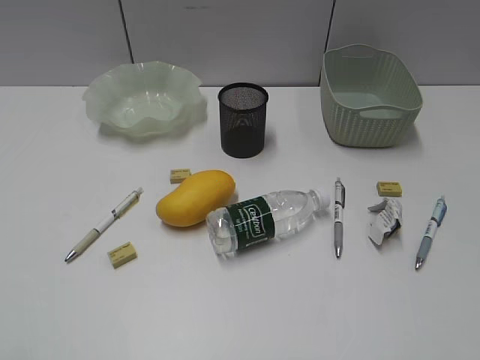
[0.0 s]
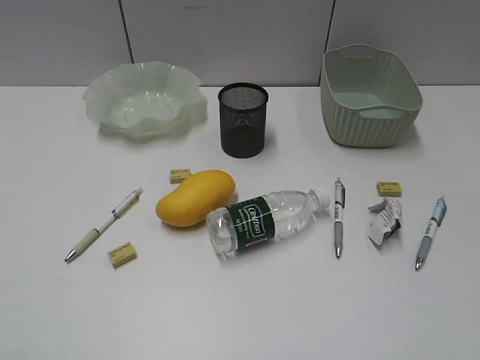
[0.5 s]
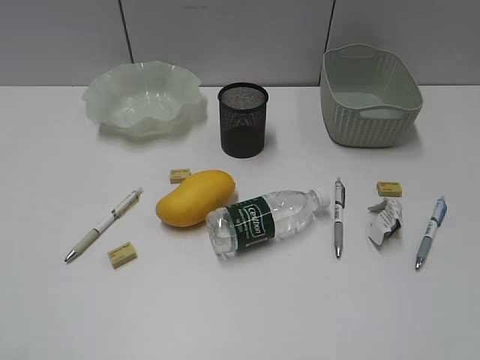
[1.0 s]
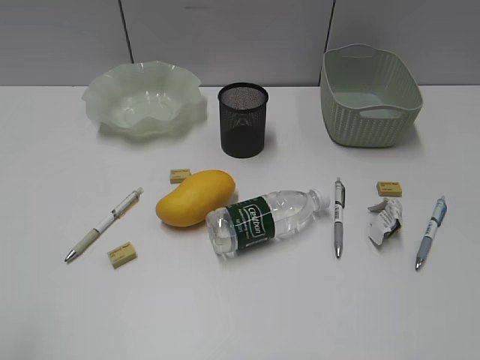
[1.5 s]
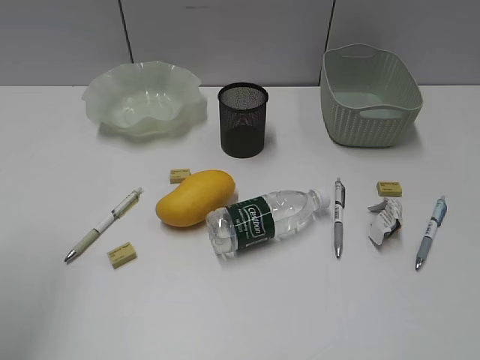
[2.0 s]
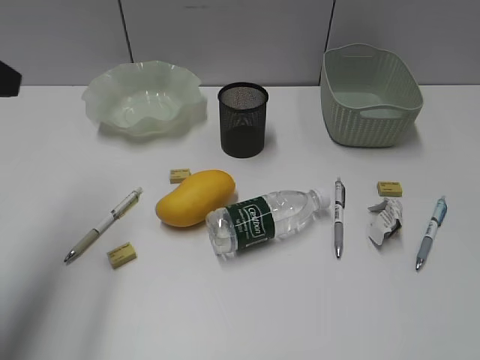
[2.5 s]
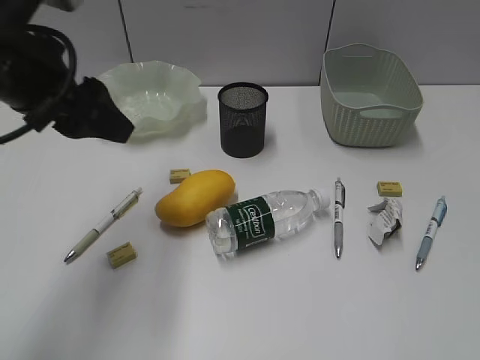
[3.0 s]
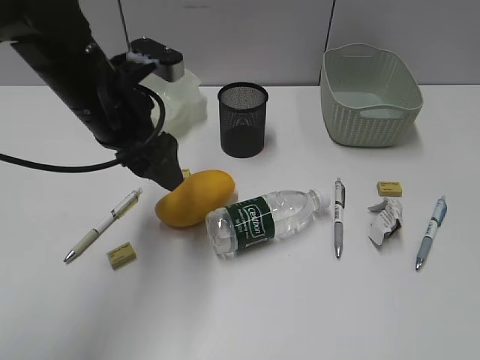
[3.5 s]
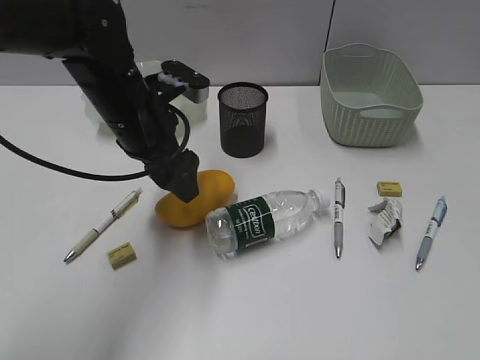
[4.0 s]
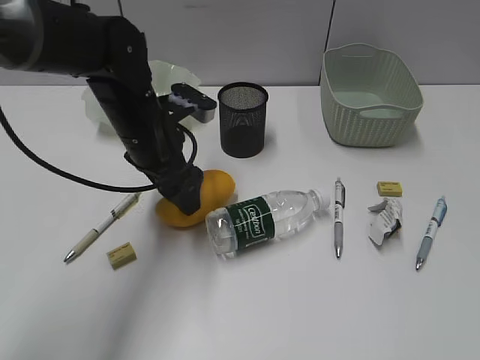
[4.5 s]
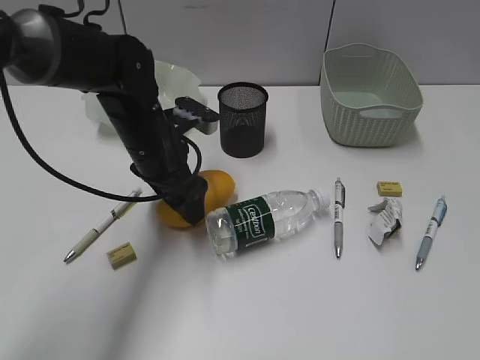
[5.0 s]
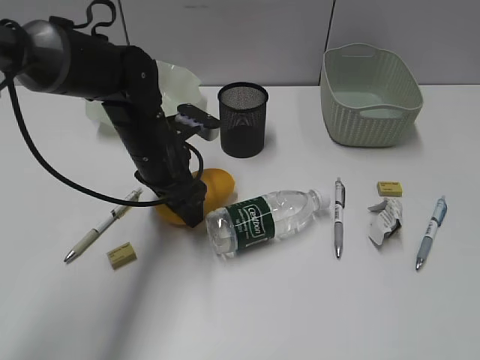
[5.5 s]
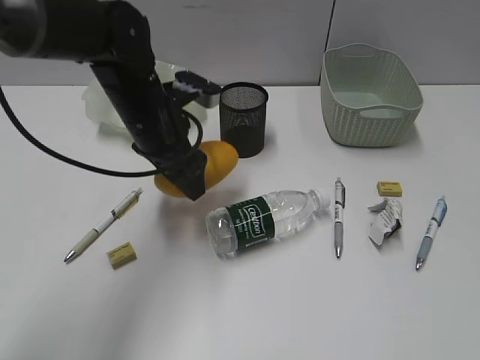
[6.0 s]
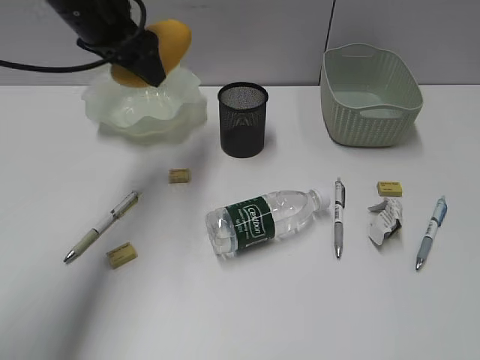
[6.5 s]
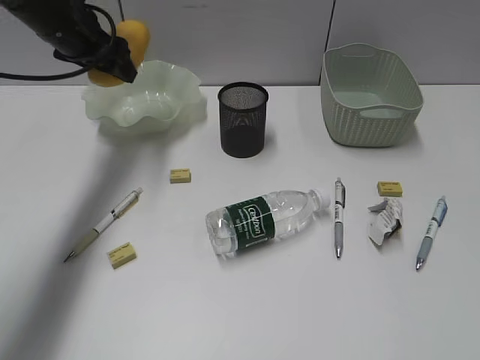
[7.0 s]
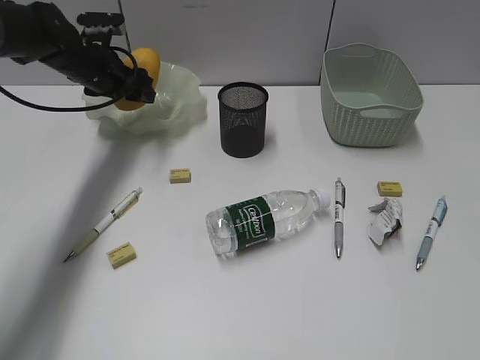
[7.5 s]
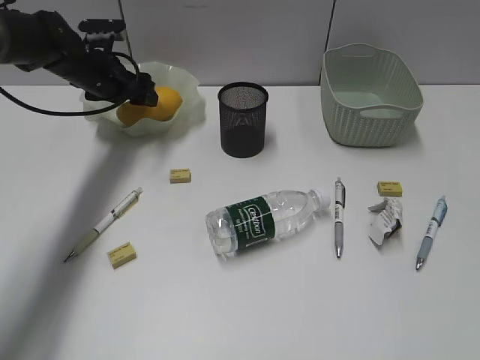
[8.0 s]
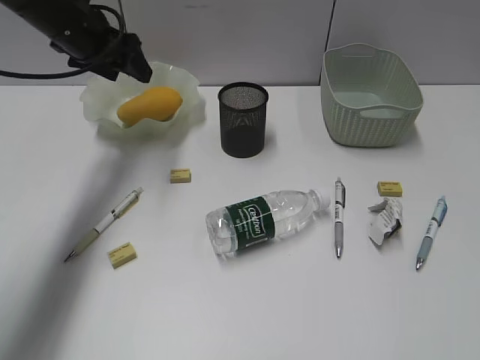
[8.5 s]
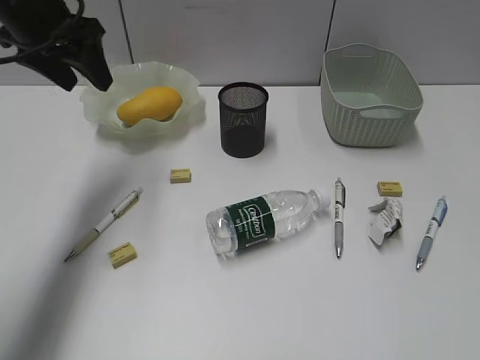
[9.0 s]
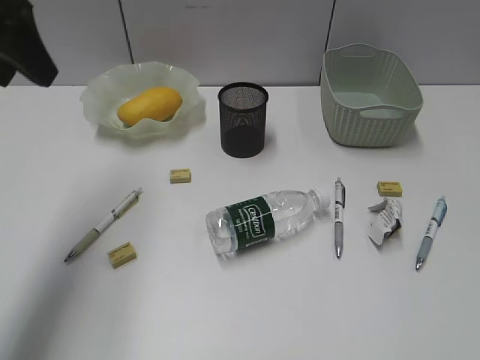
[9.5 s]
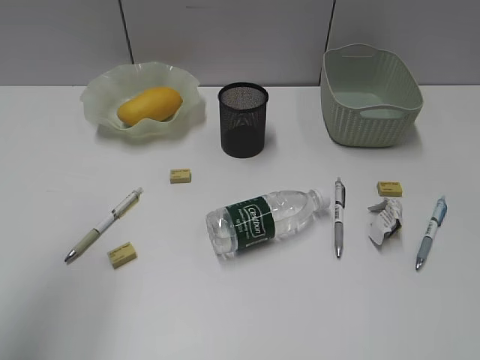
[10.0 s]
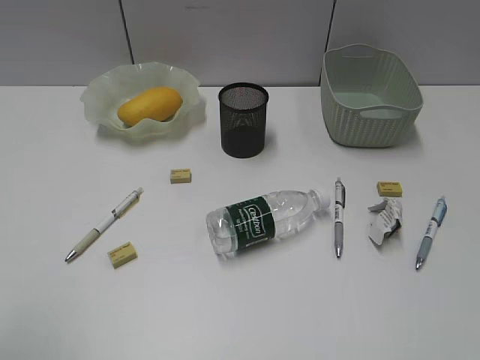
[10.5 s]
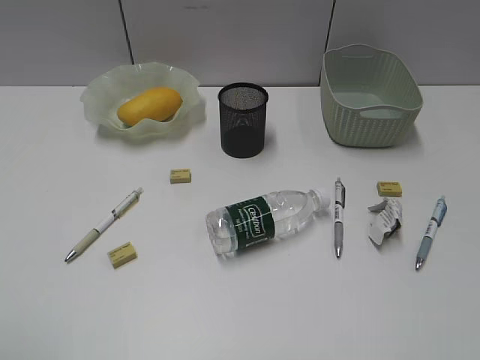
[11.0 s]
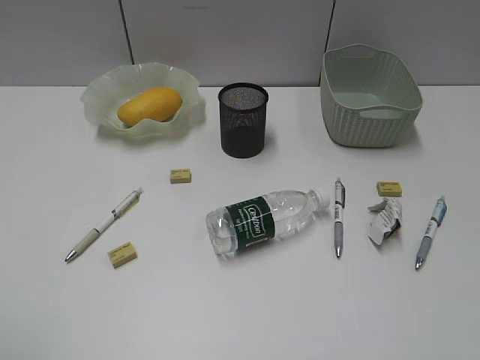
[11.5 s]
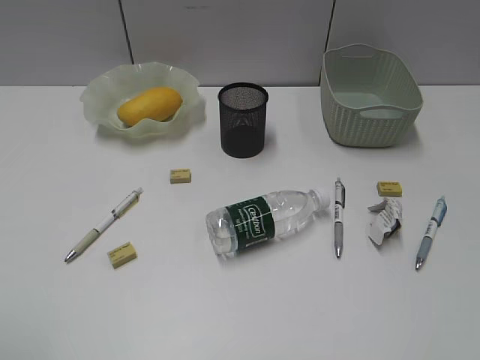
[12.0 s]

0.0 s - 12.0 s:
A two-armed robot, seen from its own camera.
Step, 2.5 s - 5.5 s: Grasp the mango with left gripper.
Step, 6.0 s - 8.0 s: Place the mango in the plate with left gripper.
2.0 s - 4.0 s: The left gripper travels forward, to the right and downward by about 30 cm.
6.0 s - 8.0 s: The left gripper shifts roughly 20 cm forward and to the left.
8.0 s - 10.0 s: The left gripper is displaced backward and upward by roughly 40 cm.
10.0 s - 12.0 s: The left gripper moves backward and downward, about 15 cm.

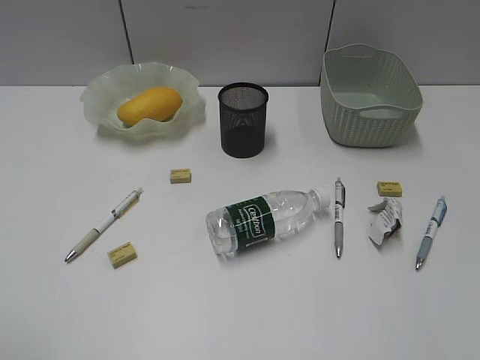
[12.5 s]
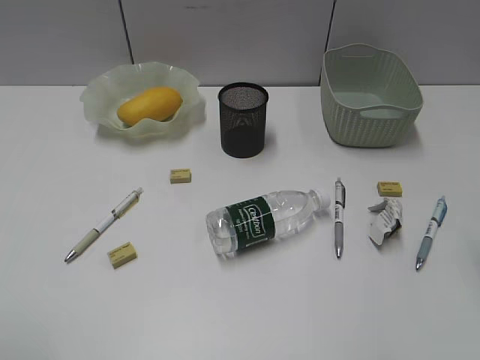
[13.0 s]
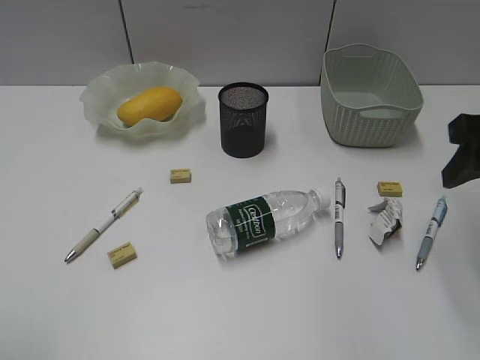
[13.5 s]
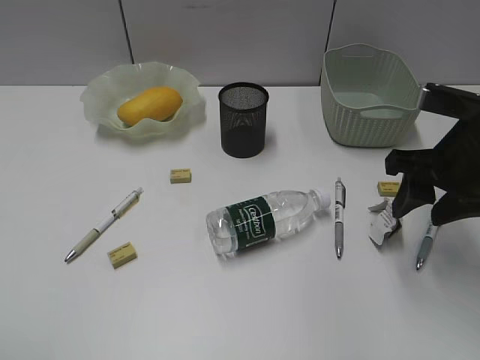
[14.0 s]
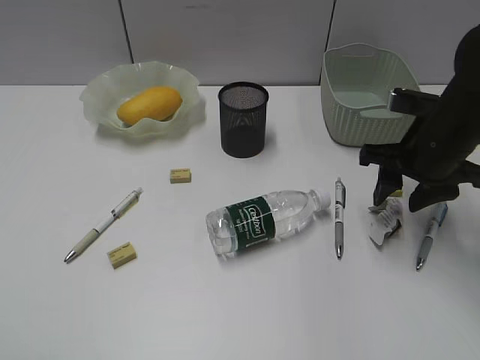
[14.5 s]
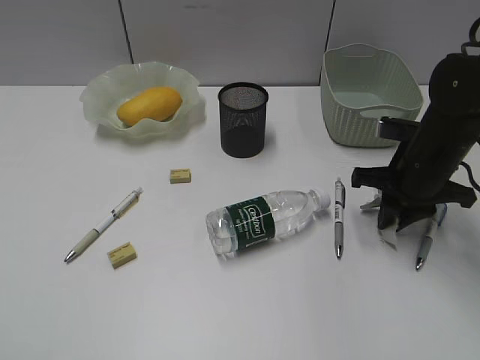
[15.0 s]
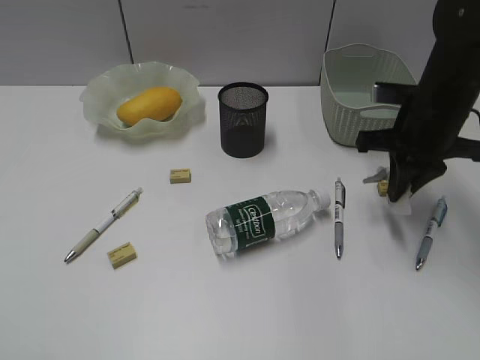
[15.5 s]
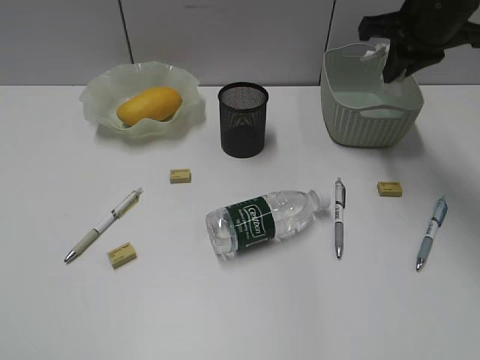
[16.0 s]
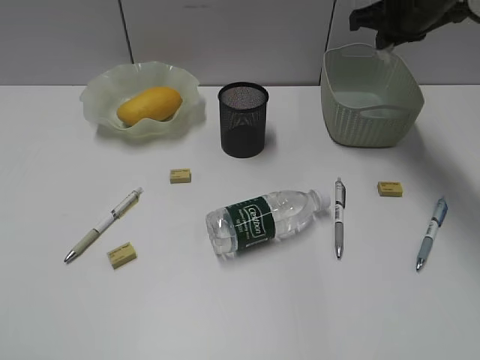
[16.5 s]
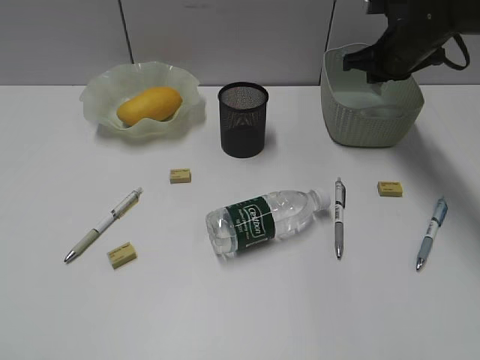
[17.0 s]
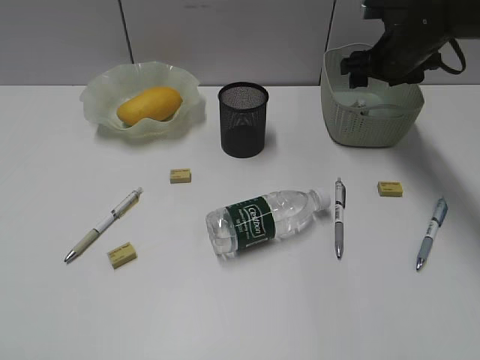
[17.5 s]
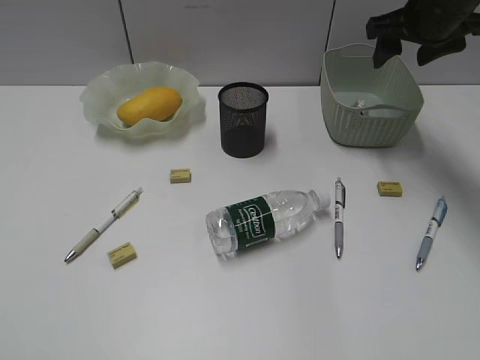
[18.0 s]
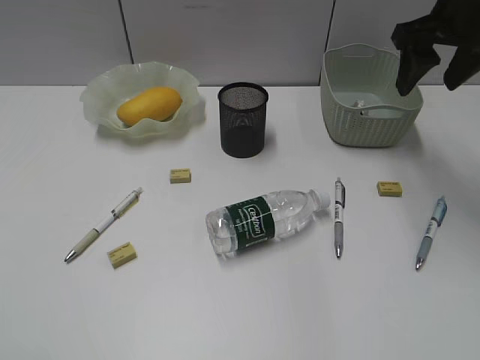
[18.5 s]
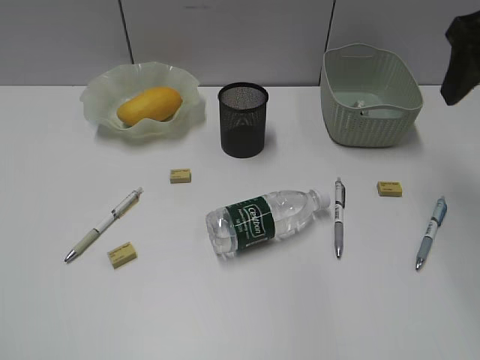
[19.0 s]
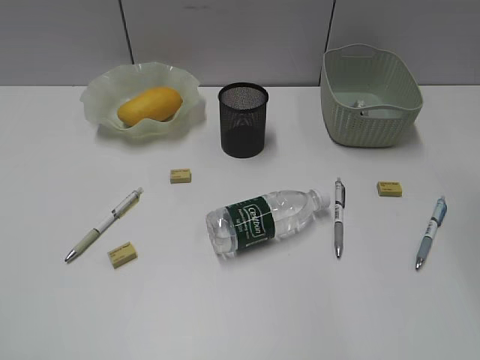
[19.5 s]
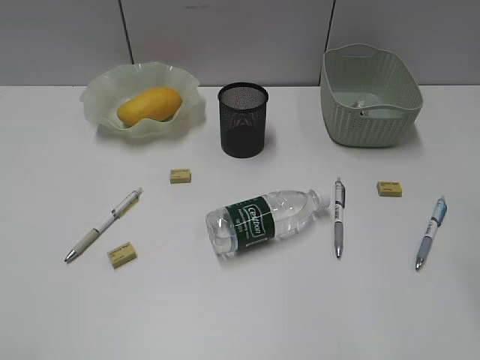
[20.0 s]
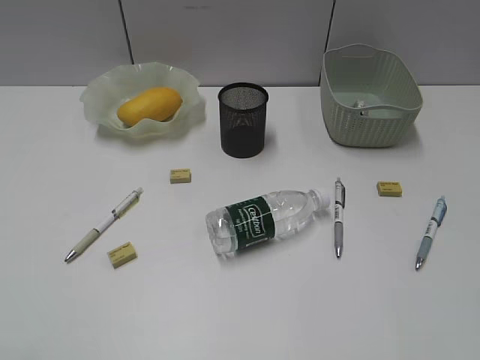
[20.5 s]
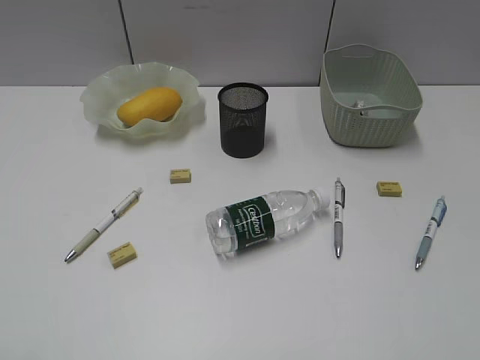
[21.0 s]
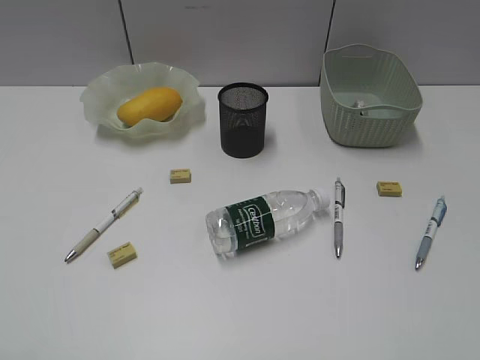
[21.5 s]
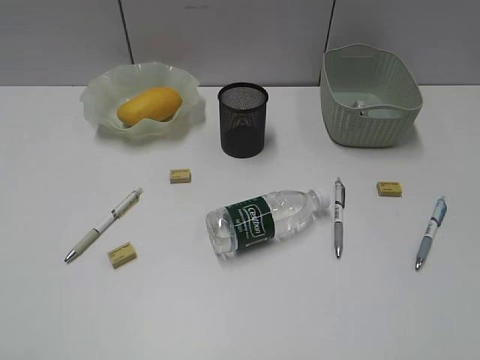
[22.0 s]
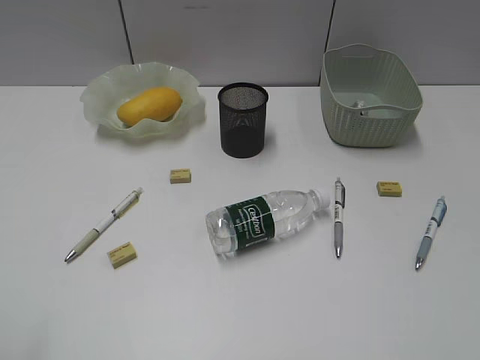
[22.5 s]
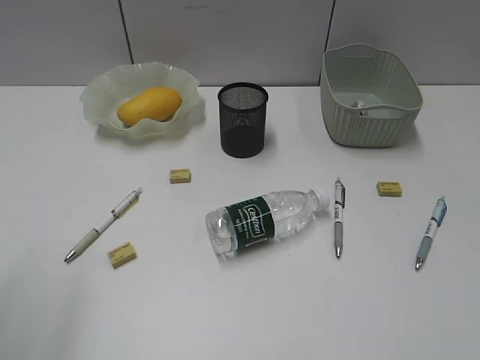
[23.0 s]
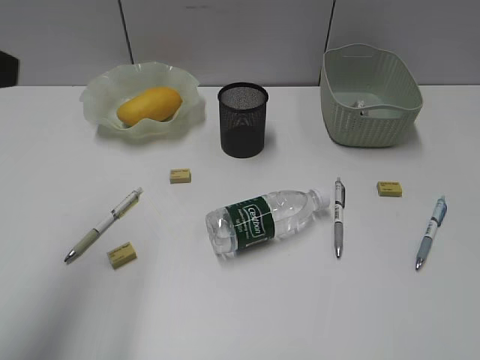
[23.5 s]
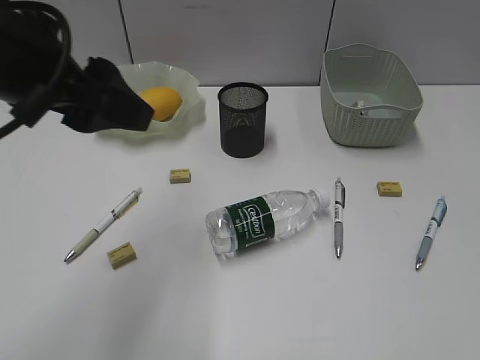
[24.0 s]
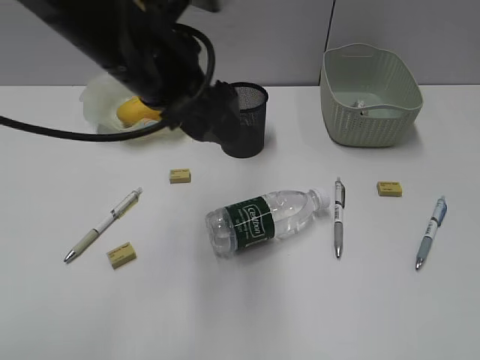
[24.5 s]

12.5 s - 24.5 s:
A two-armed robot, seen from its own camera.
Step, 12.5 s - 15.0 s: Grasp the waste paper with right gripper.
Step, 15.5 s - 17.5 s: Place the waste paper in the basket with right gripper.
12.5 s - 14.5 s: The right gripper travels forward and downward by some 30 cm.
14.5 s - 16.5 s: The right gripper is displaced forward and upward by roughly 15 cm, and closes its fingers.
16.5 s - 18.5 s: The right gripper travels backward by about 5 cm, moves some 10 cm downward and comes back, and opens up.
18.5 s - 20.5 s: The right gripper heads backward, covering approximately 30 cm.
22.5 s - 24.5 s: The left gripper moves forward and to the right, roughly 35 cm.

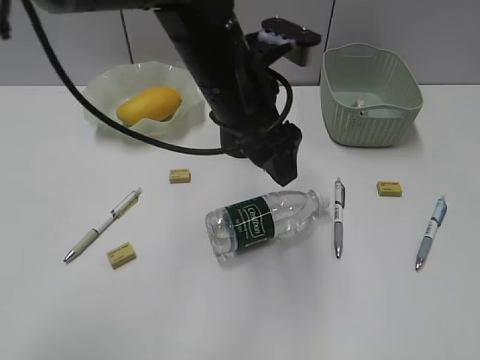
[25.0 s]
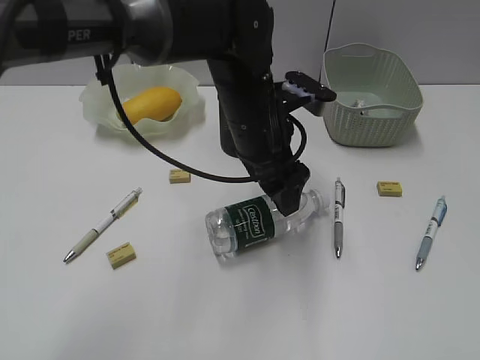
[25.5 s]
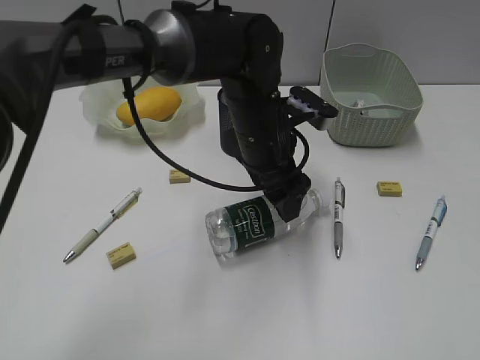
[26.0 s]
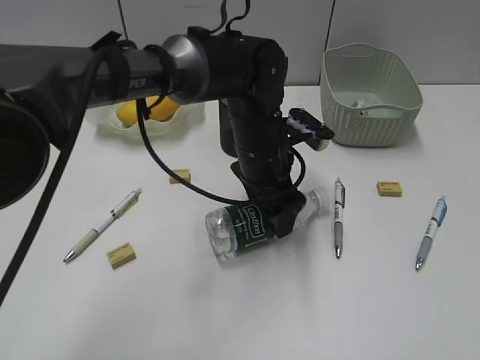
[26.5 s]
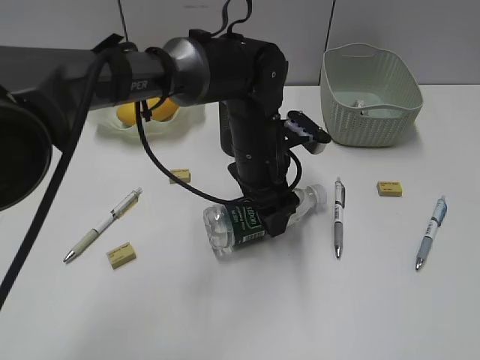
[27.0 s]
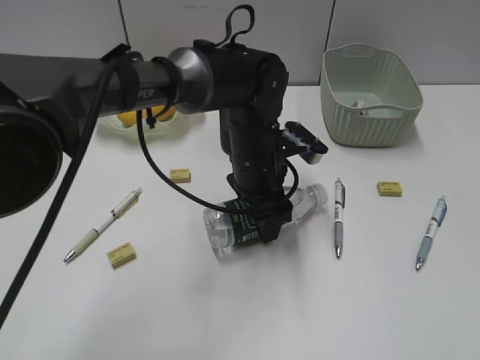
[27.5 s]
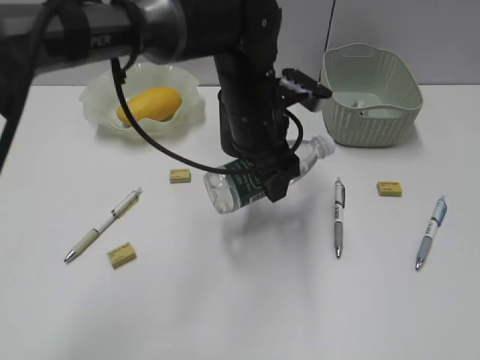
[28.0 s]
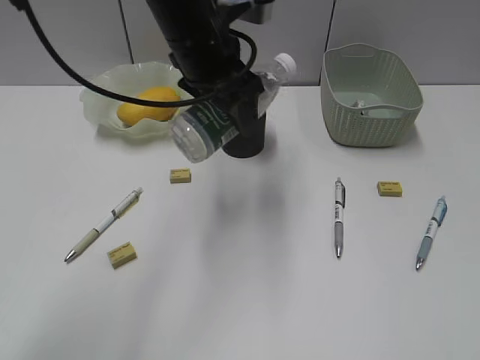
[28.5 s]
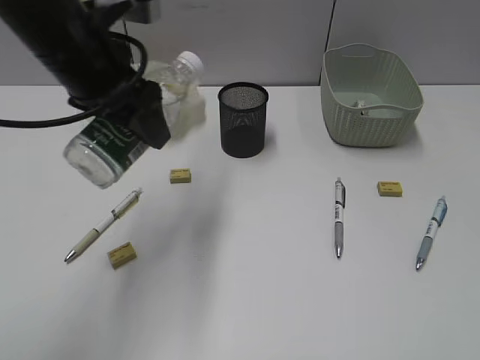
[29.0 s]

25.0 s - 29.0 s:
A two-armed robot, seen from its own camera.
Step, 25.0 s - 27.0 s: Grasp the bottle with left gripper.
25.0 s - 27.0 s: The left gripper is displaced downward by approximately 10 cm.
27.0 s - 29.0 s: The left gripper travels to the left and upward by some 25 cm.
